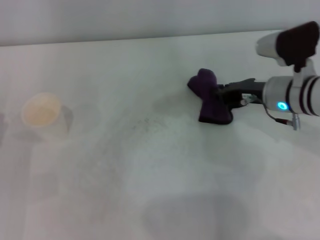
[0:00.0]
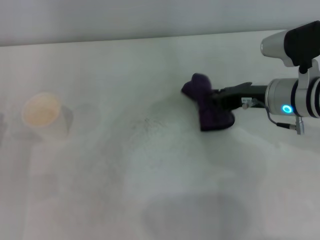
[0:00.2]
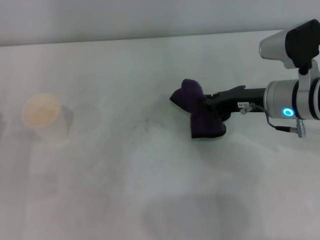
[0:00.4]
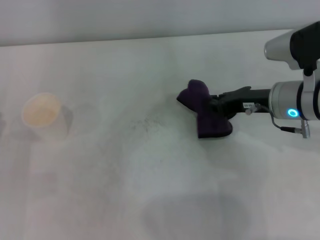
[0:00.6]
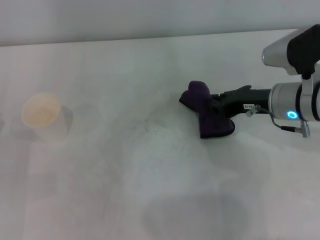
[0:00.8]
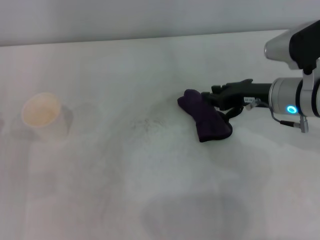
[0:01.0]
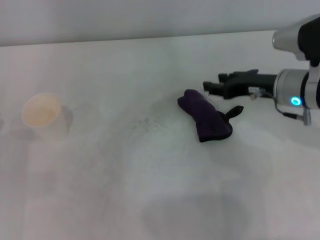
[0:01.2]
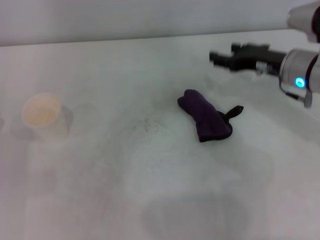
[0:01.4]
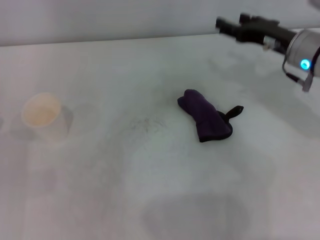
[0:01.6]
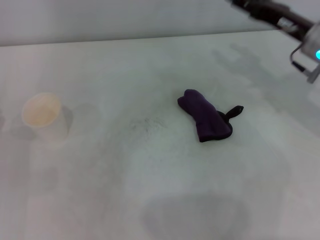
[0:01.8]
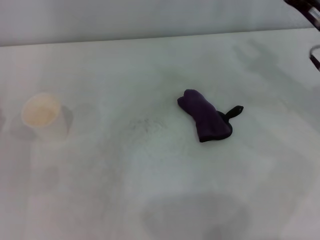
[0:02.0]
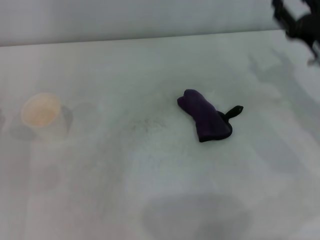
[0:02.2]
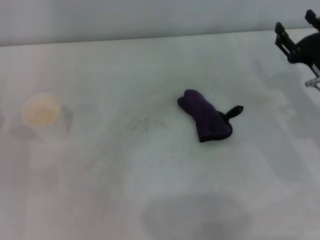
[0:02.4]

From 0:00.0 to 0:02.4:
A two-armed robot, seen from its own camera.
Step, from 0:00.0 to 0:00.8: Place the rag on the table with the right gripper.
From 0:00.0 to 0:01.2: The right gripper opens up.
From 0:01.2 to 0:02.4: The right gripper is displaced to the right by approximately 5 cm, and opens.
